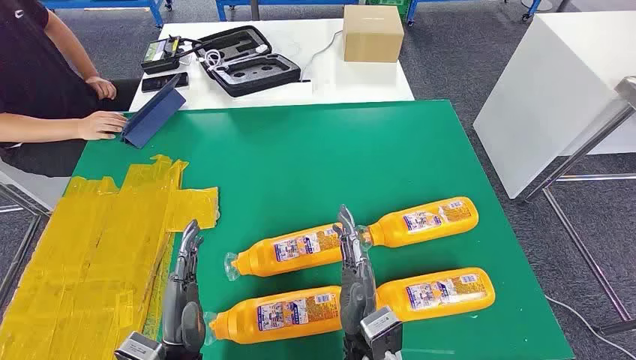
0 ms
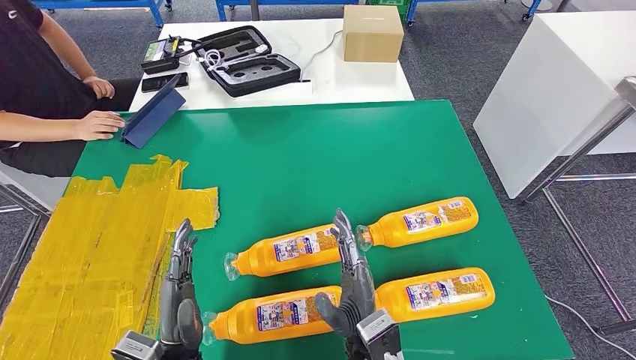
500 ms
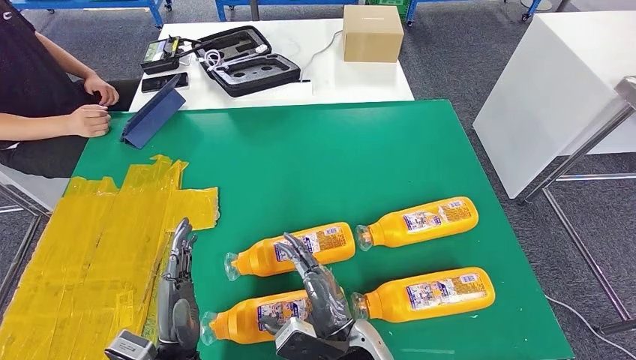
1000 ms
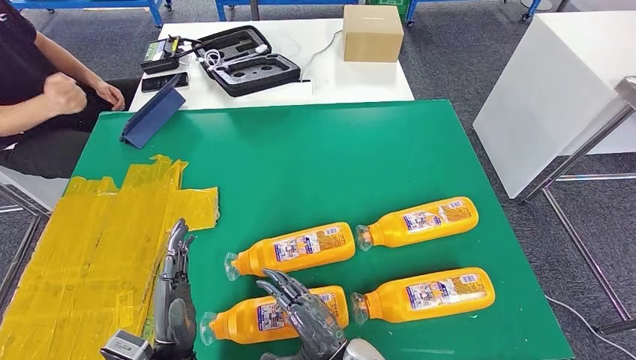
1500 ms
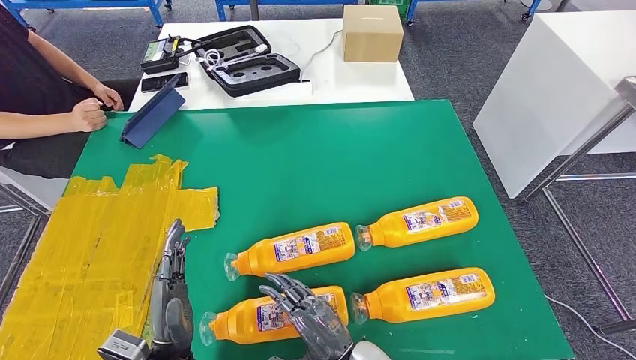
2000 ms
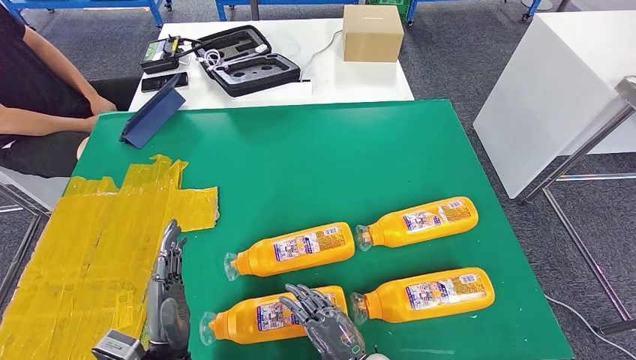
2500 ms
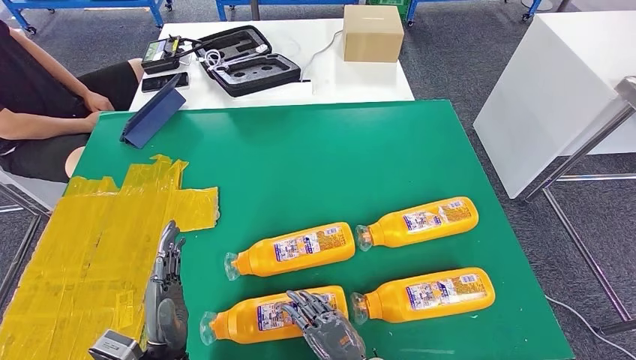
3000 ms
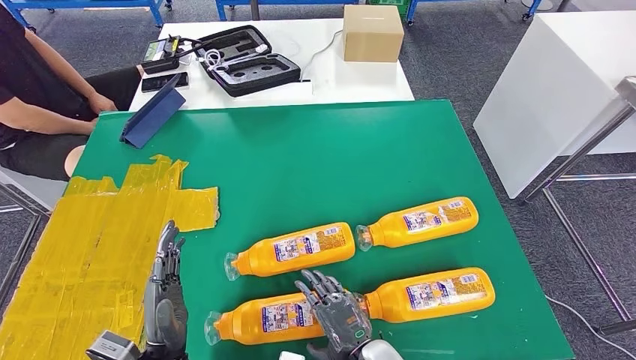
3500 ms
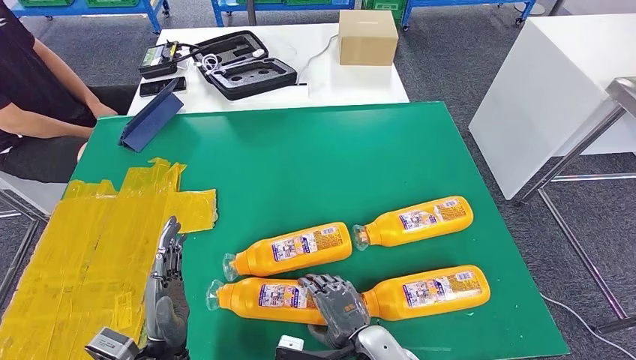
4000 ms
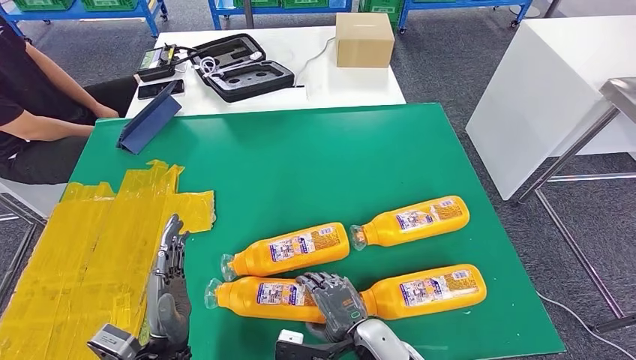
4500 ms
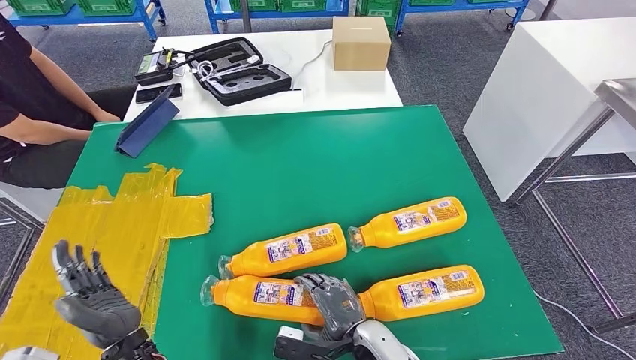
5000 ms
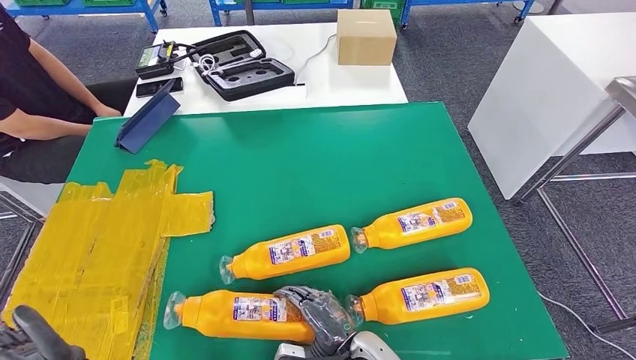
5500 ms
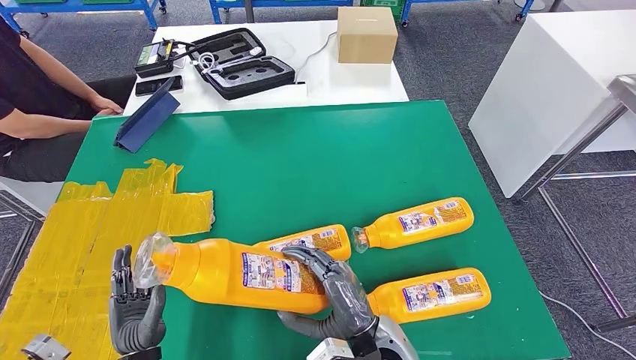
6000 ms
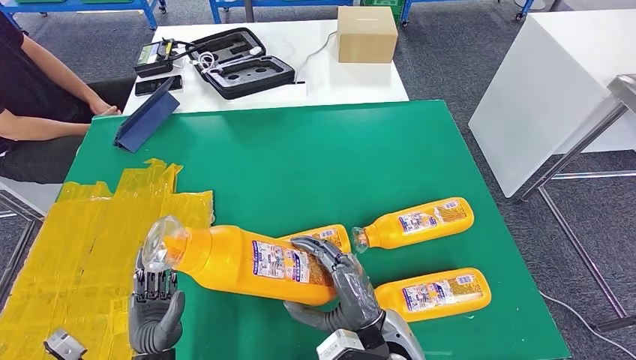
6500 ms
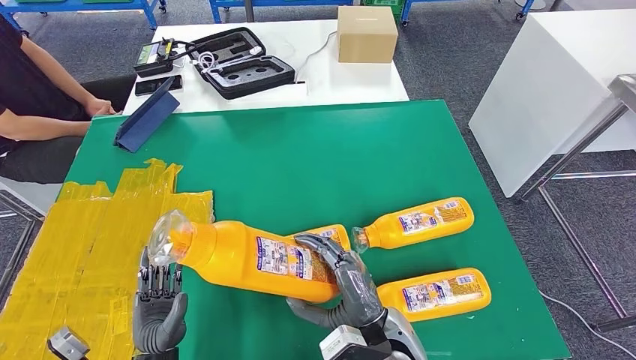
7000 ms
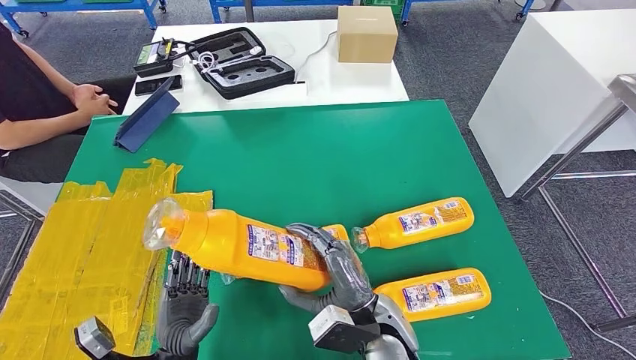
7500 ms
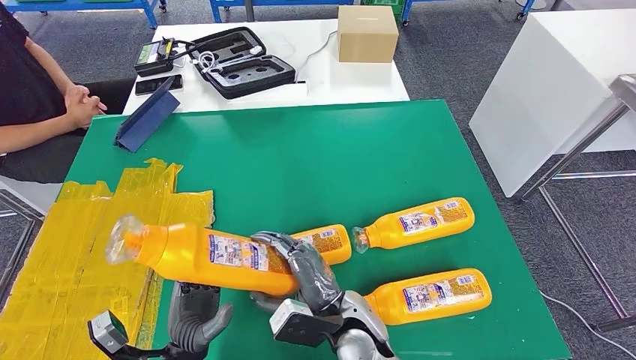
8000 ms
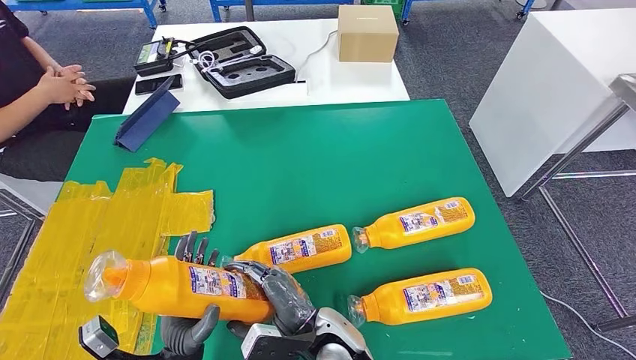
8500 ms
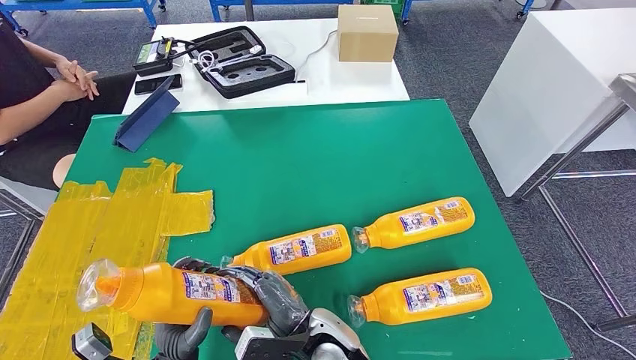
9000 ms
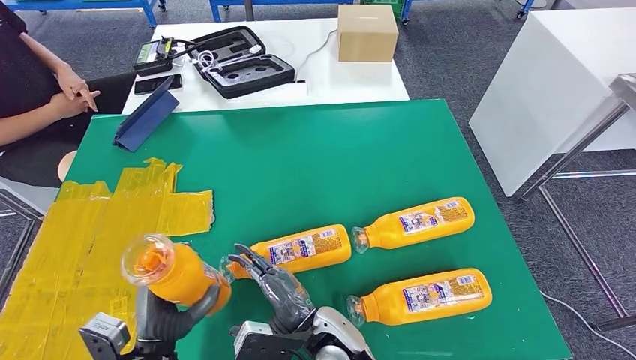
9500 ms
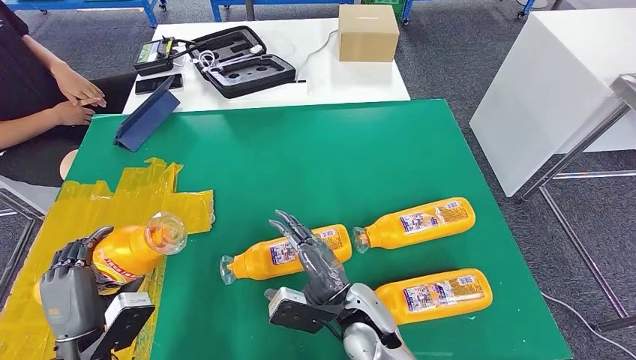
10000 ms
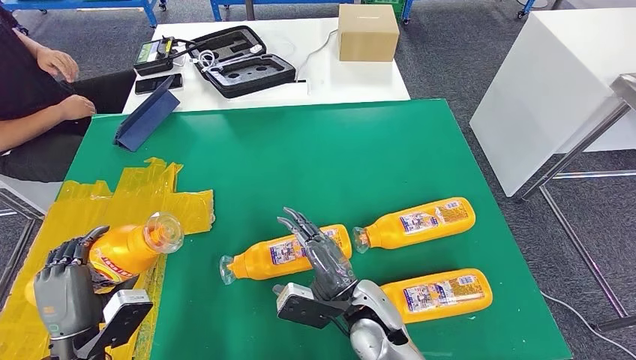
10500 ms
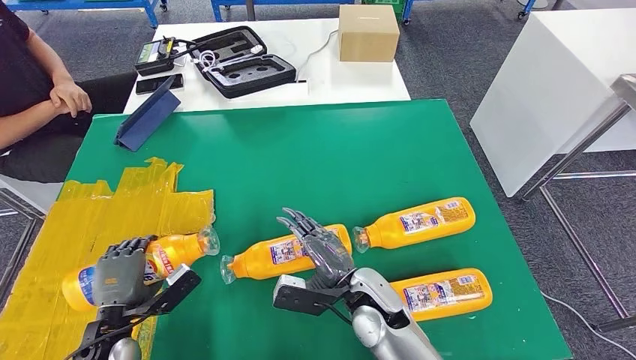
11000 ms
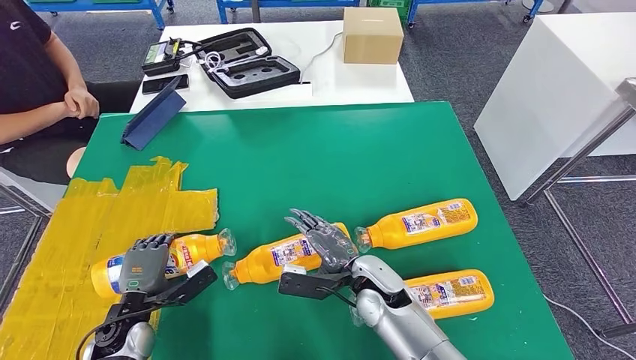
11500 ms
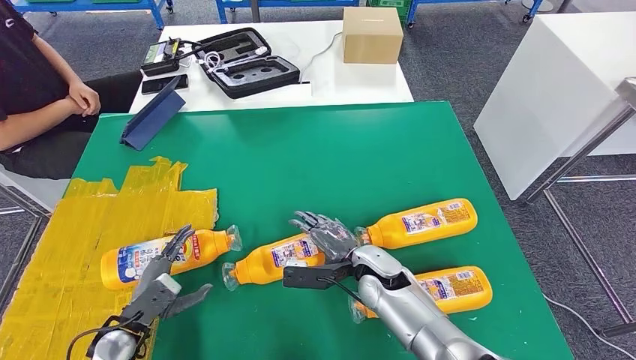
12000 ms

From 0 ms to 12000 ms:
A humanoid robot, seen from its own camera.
Step, from 0 ms to 5000 ms: Take the fast-moving consumer goods bottle from the table.
Step, from 5500 ms to 12000 ms: Flip the fast-moving consumer goods bottle to the front side.
From 6000 ms to 8000 ms: The left hand is displaced to the right by about 5 cm. The right hand shifts by approximately 5 cm.
From 8000 ms to 10000 ms: The left hand travels to the left and upward by about 15 cm.

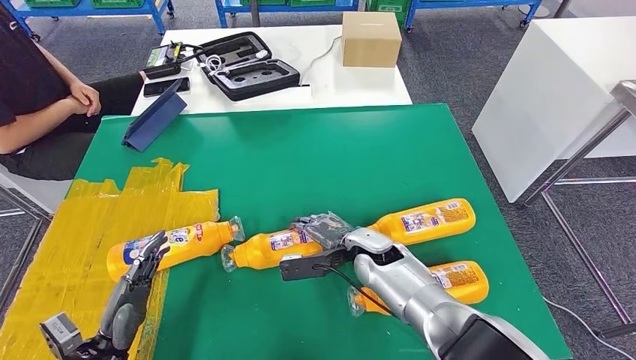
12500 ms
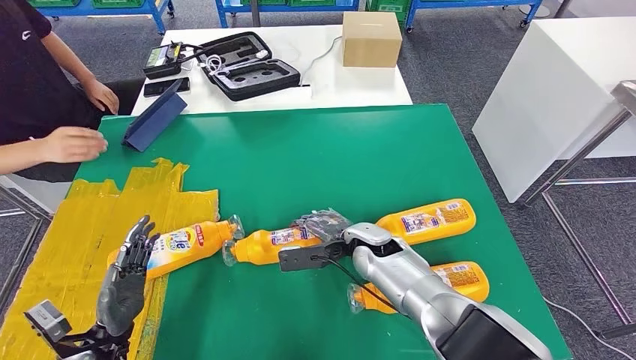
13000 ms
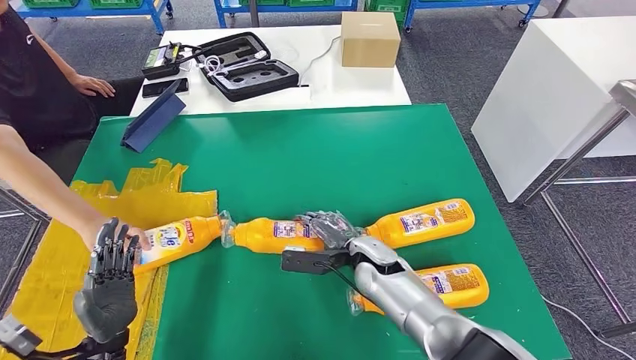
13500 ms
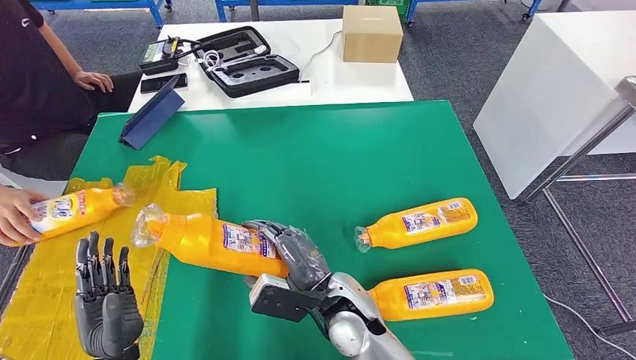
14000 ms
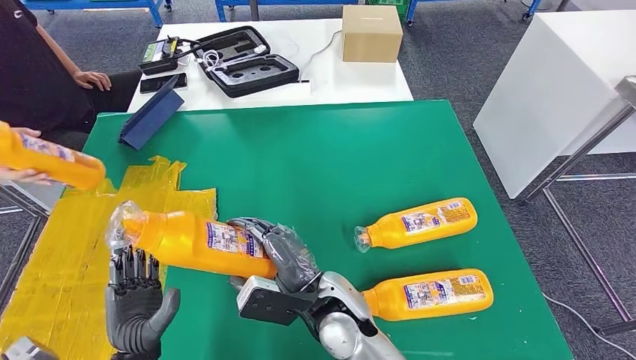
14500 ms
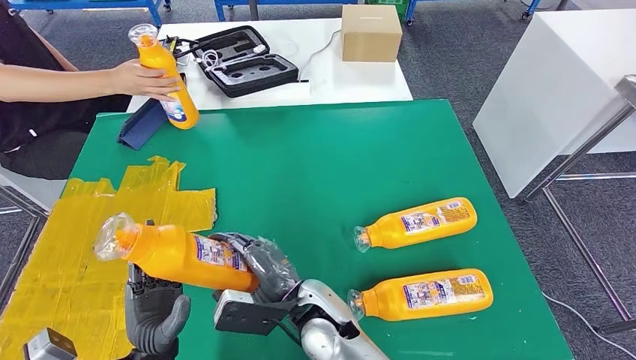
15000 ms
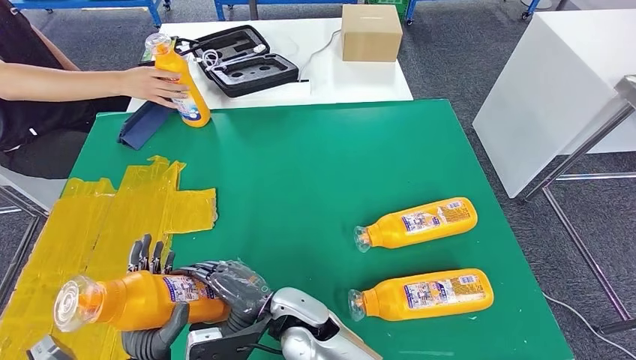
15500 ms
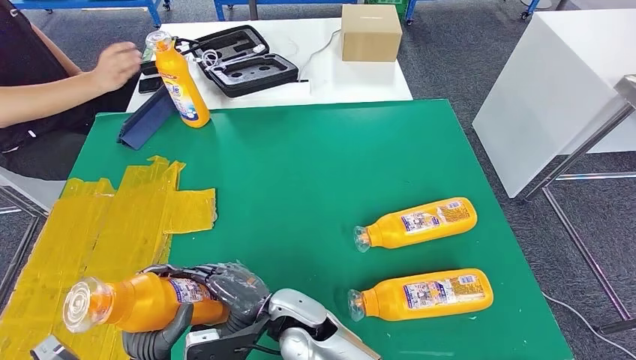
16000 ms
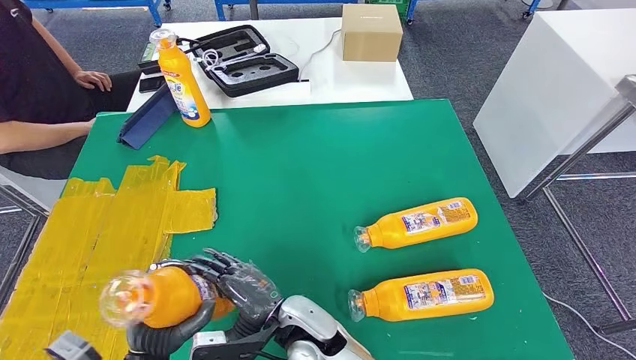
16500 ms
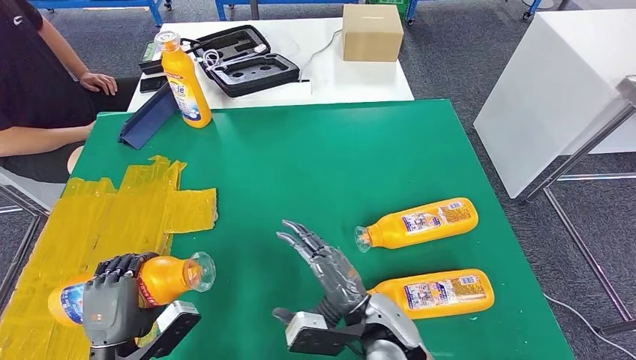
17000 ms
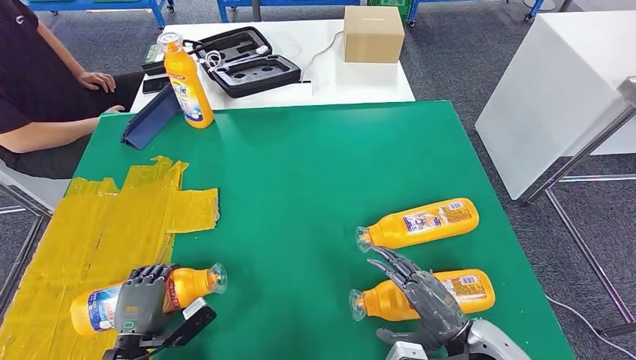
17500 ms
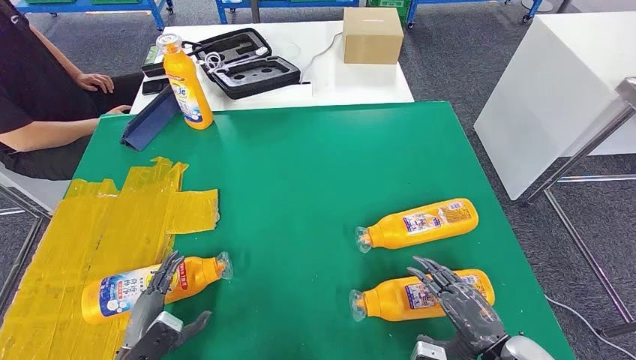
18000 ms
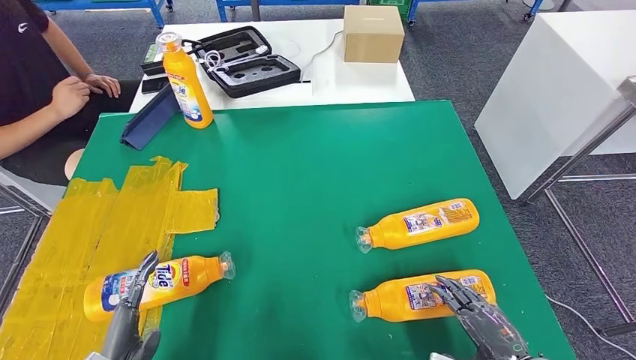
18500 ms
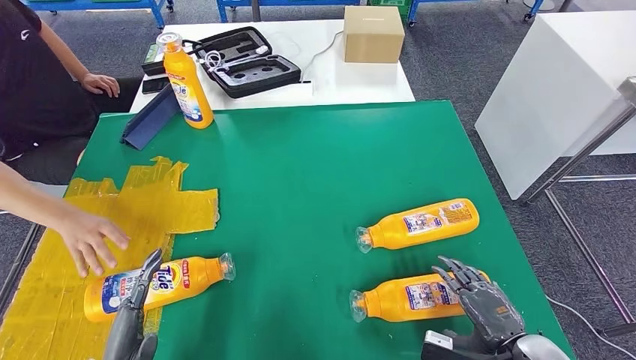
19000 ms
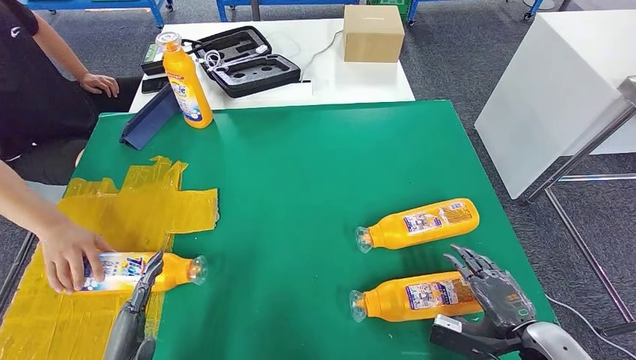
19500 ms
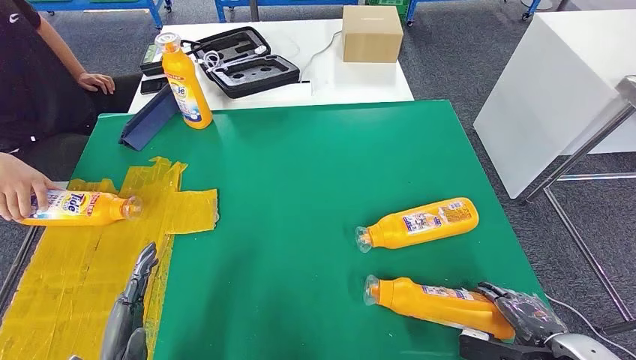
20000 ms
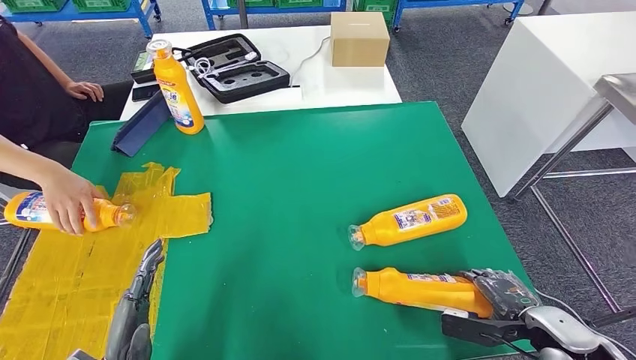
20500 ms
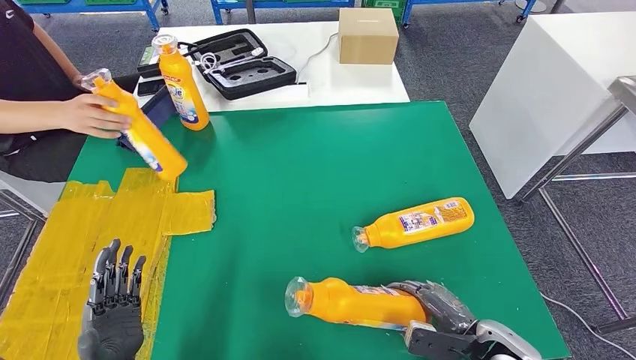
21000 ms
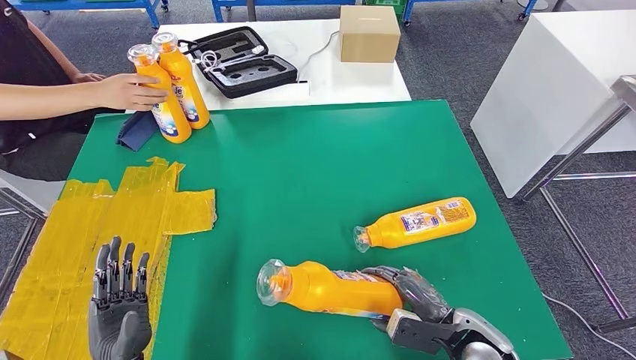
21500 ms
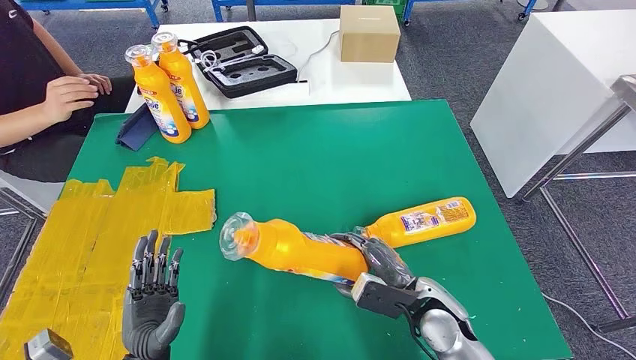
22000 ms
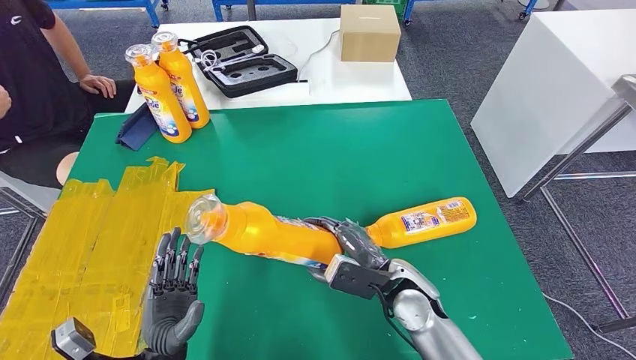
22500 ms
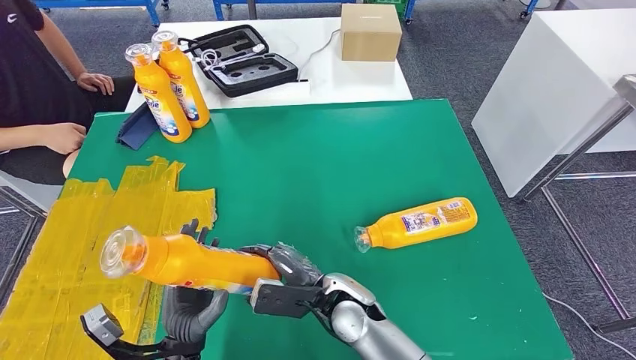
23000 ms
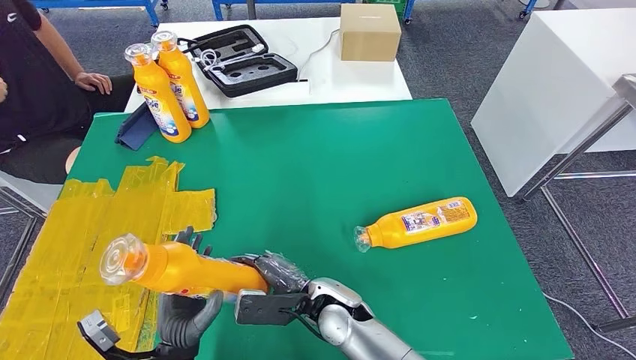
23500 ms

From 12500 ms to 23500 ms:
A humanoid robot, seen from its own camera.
Step, from 12500 ms to 15000 ms: Pick up the fast-moving consumer goods bottle from the table.
Step, from 15500 ms to 18000 ms: Flip the fast-moving consumer goods bottle to the front side.
Step, from 18500 ms to 22000 ms: Pick up the fast-moving consumer goods bottle from the table.
From 18000 ms to 20000 ms: The left hand heads upward, covering roughly 5 cm, while the right hand travels to the right by some 10 cm.
